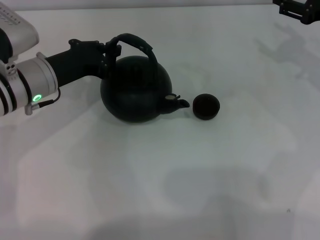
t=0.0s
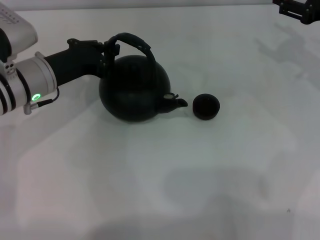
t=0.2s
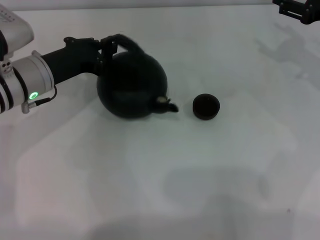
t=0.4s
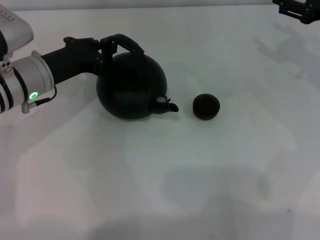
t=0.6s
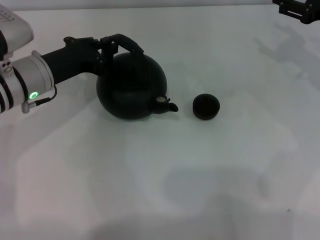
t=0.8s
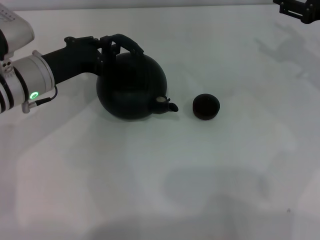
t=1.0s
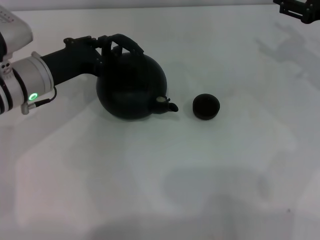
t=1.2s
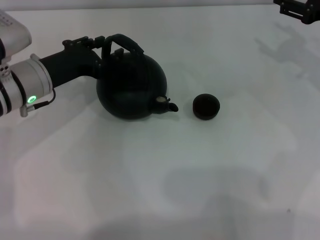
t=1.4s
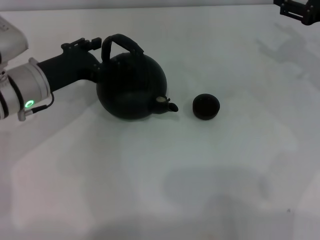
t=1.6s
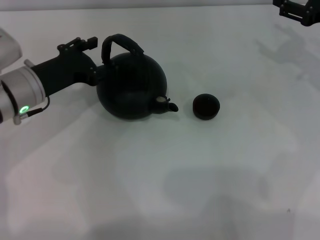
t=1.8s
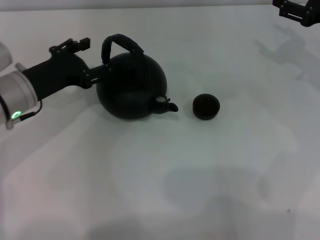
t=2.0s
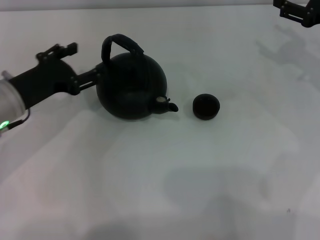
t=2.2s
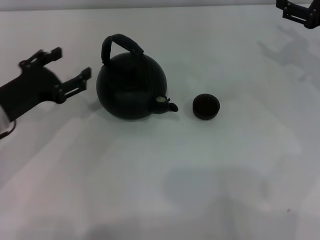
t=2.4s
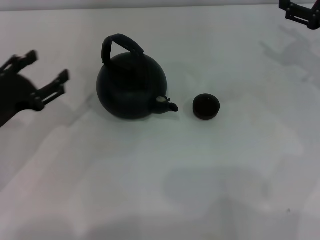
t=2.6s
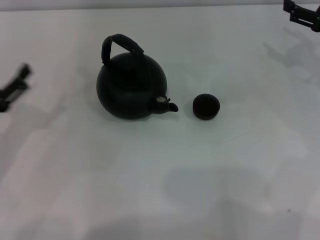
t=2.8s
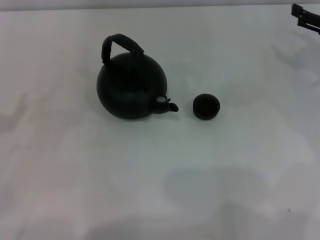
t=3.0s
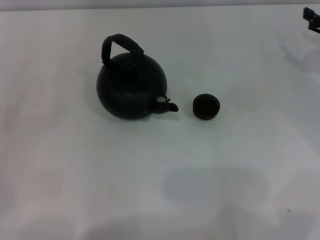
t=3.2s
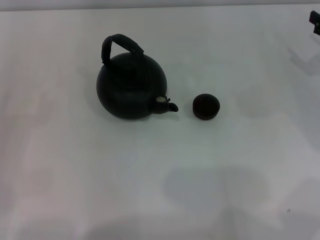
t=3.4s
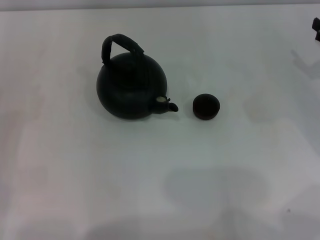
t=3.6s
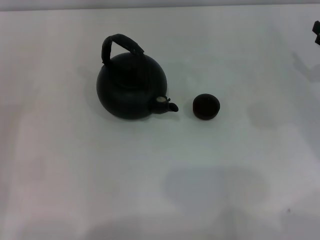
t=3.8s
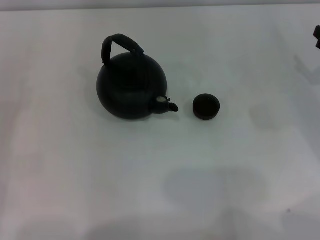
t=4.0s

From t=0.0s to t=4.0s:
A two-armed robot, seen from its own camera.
Task of the whole recording: Grasp the handle of the teapot with one hand and pour tea into the teacup.
From t=0.0s to t=1.4s: The left gripper opens up.
From t=1.4s to t=2.6s: The left gripper goes approximately 10 cm backward and to the left, and opens its fingers.
From t=2.6s to t=4.0s: The left gripper moves to the left, approximately 10 cm. The right gripper moves downward and backward, roughly 10 cm.

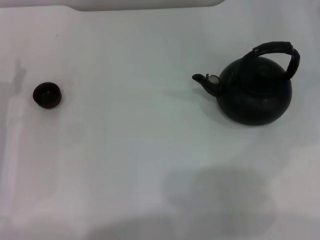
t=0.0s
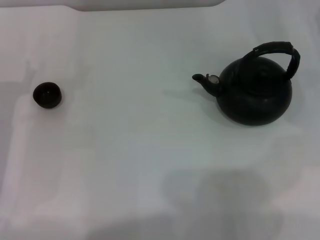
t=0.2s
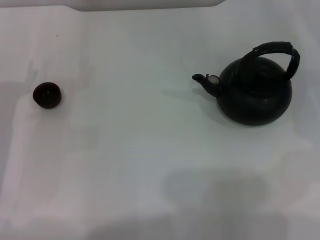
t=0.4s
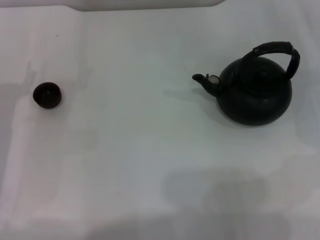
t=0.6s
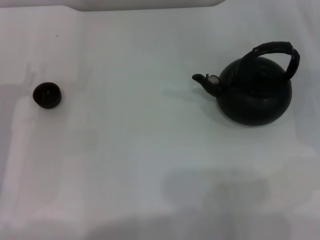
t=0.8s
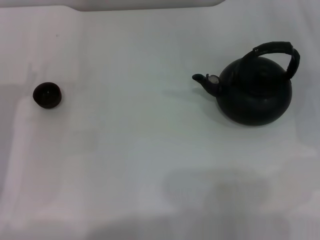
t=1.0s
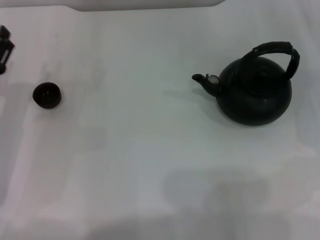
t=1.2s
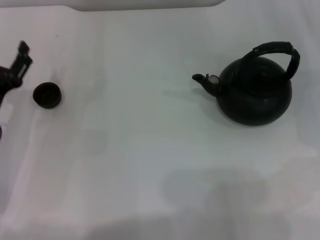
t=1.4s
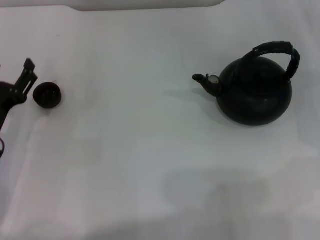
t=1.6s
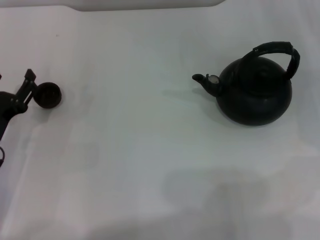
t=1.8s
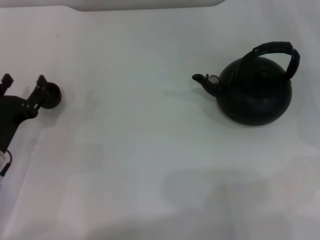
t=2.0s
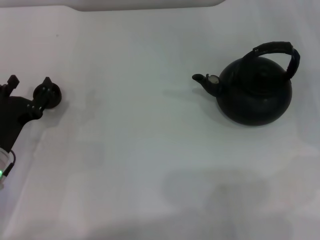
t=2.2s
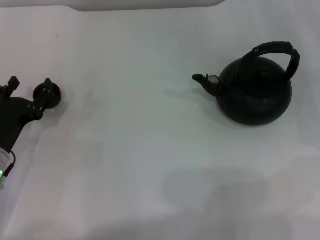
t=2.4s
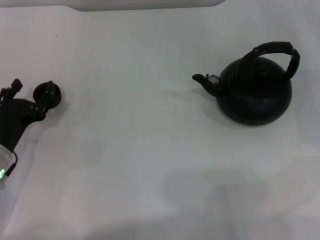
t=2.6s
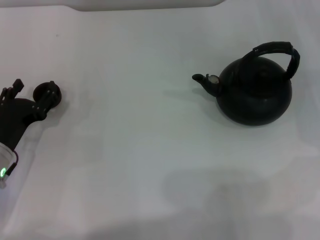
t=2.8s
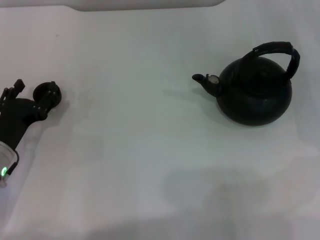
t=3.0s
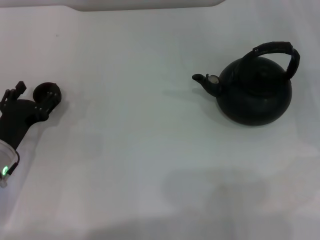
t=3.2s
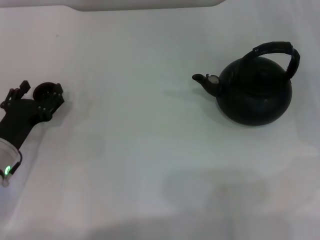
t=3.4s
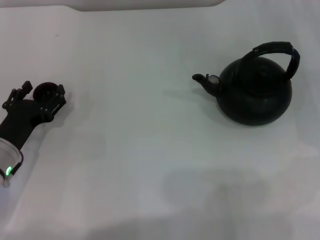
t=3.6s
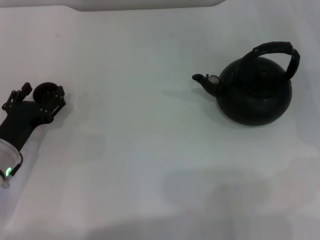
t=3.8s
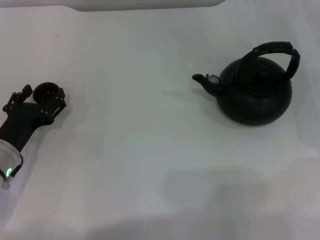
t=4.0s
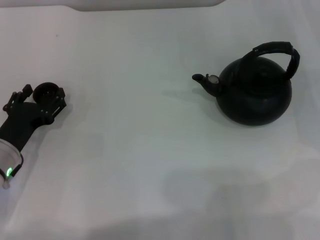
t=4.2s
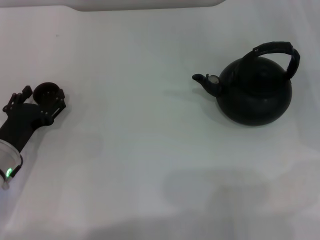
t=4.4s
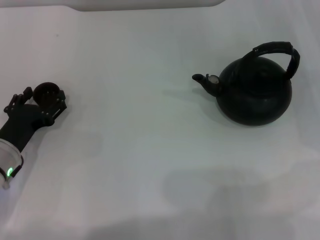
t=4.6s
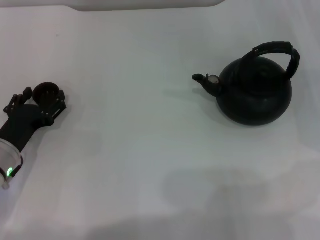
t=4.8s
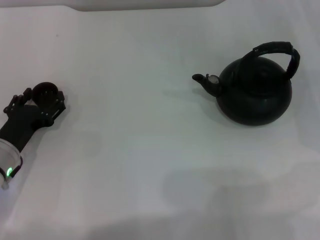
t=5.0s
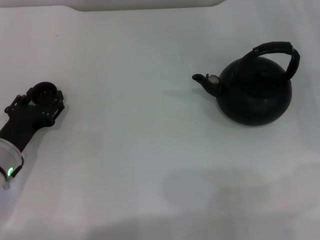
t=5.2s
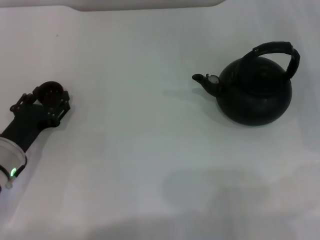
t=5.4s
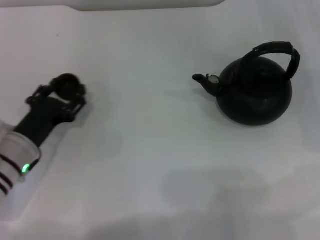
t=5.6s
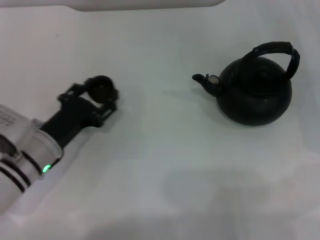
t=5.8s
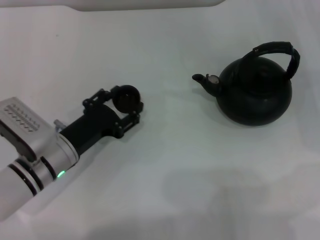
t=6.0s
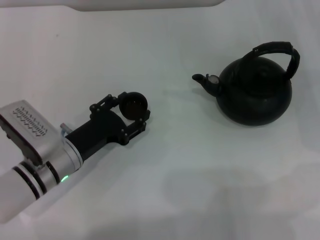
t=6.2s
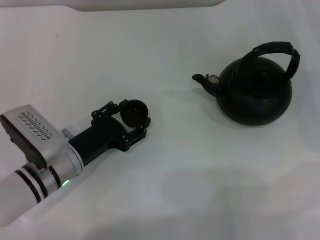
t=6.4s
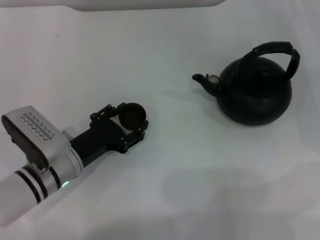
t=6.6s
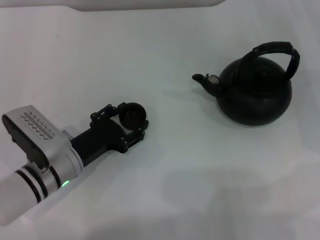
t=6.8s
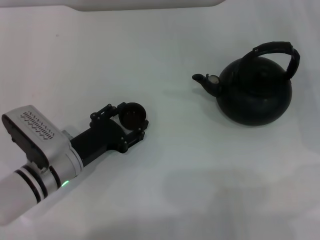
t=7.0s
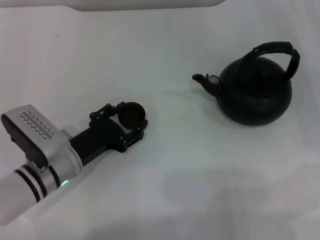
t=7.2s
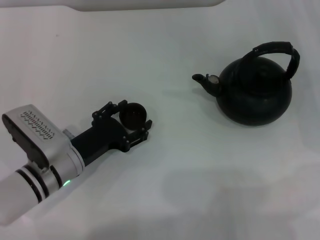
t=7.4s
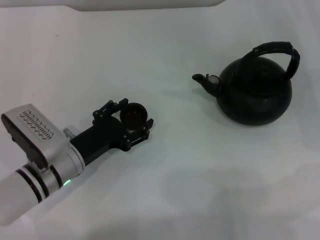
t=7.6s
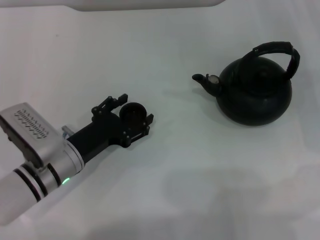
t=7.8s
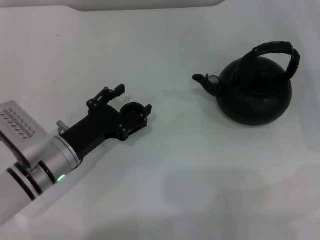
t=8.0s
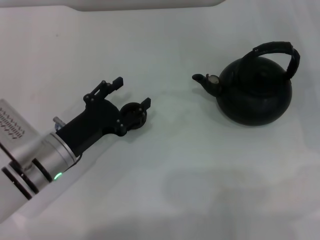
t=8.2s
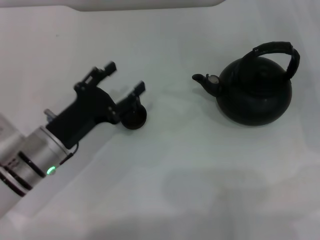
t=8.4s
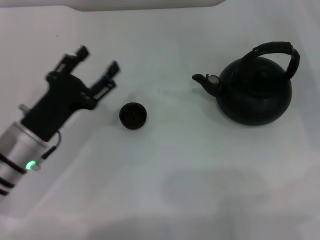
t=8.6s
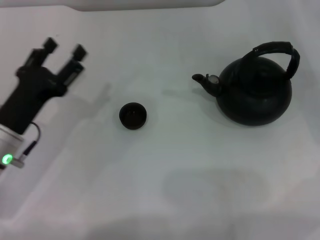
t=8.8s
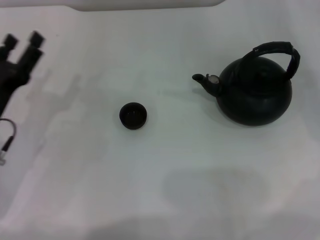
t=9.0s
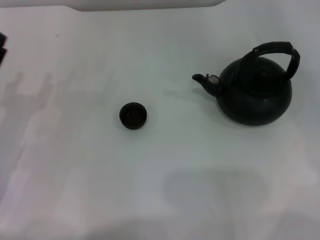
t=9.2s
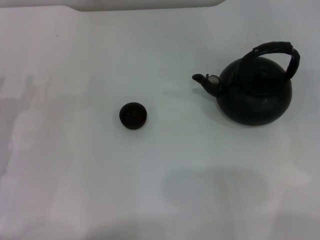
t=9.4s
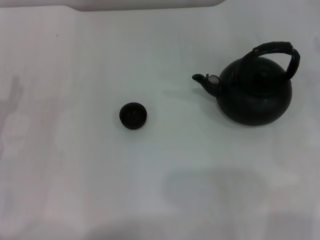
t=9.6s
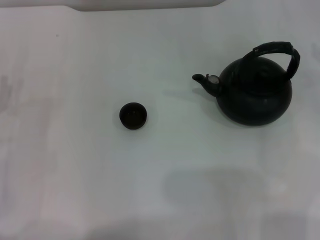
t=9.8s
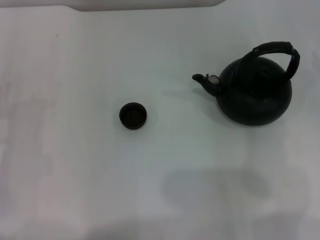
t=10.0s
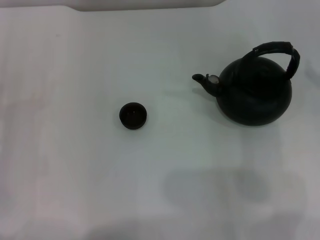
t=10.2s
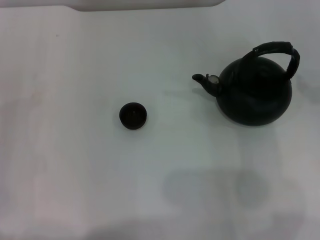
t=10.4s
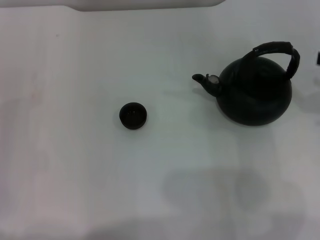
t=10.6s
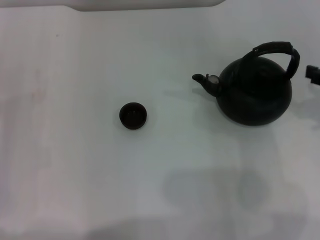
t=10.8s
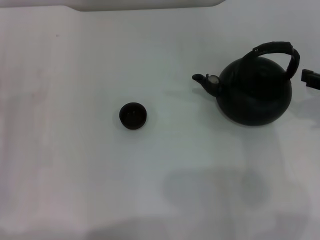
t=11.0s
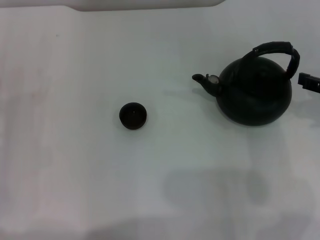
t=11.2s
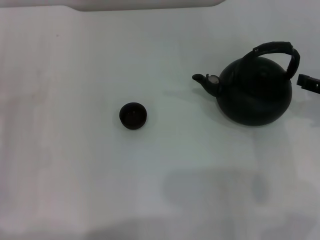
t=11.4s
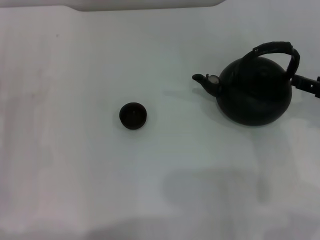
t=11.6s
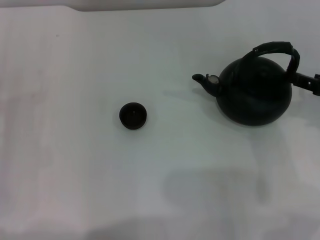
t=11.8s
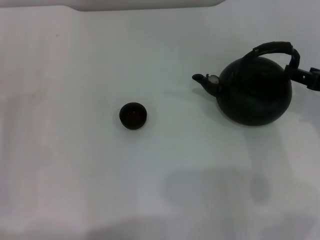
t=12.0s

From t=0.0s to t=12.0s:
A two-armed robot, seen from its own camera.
Task of the whole recording: Grasp the handle of the teapot with one hand and pour tea into the teacup.
Step, from t=0.0s to t=5.4s: Pick up the teacup with the left gripper.
Step, from t=5.6s to t=8.4s: Place the teacup in the center of view with the left gripper.
From t=1.6s to t=3.0s: The grippers move only a little.
From t=3.0s to t=4.4s: The two grippers keep their place.
From t=4.4s to t=6.0s: The left gripper travels to the right by roughly 10 cm, and closes.
From t=6.0s to t=7.6s: The left gripper opens its fingers.
From t=7.6s to t=9.0s: The right gripper travels upward by about 5 cm; the left gripper moves to the left, roughly 10 cm.
From t=9.0s to t=10.4s: The left gripper goes about 5 cm to the left.
From t=10.4s to t=12.0s: The right gripper shifts about 5 cm downward.

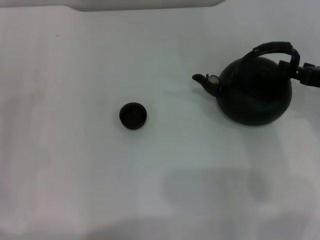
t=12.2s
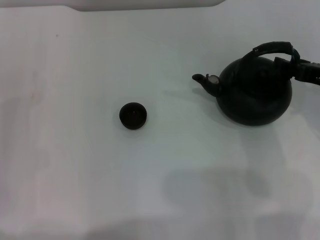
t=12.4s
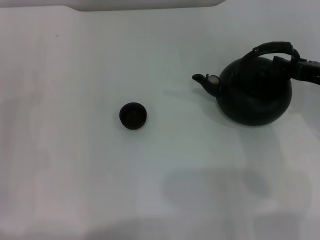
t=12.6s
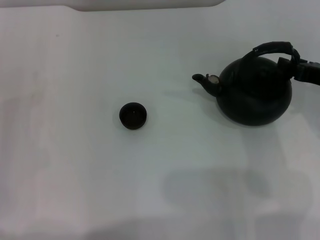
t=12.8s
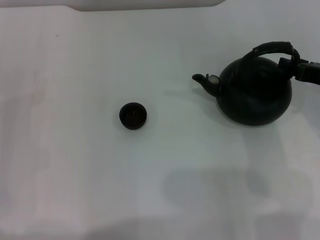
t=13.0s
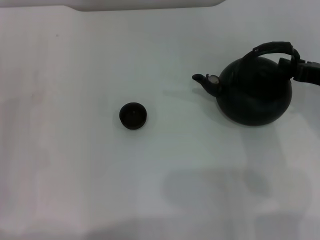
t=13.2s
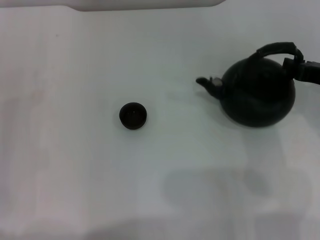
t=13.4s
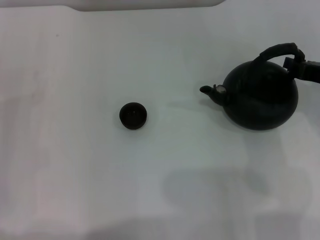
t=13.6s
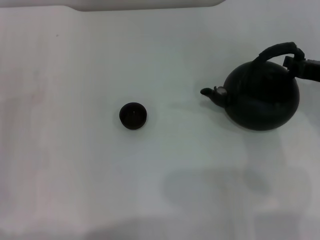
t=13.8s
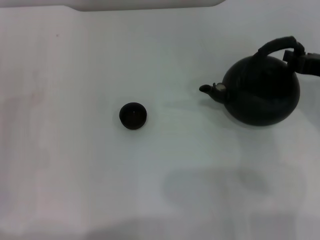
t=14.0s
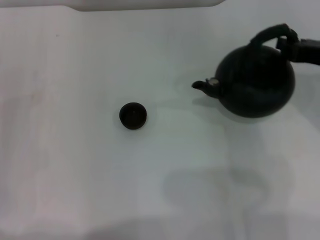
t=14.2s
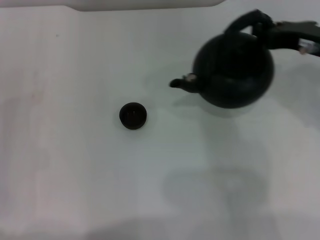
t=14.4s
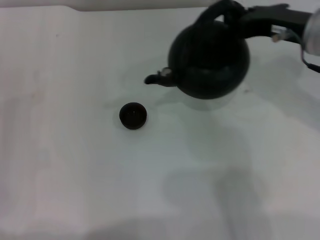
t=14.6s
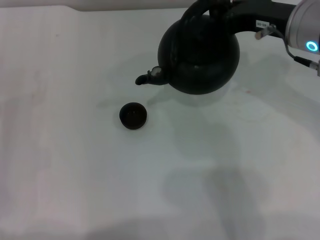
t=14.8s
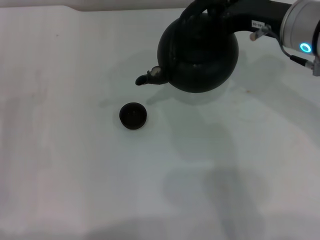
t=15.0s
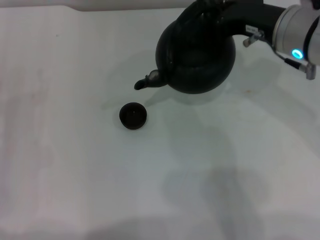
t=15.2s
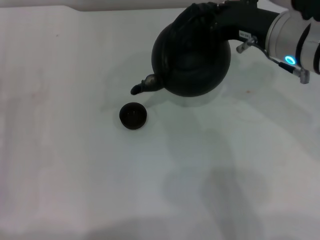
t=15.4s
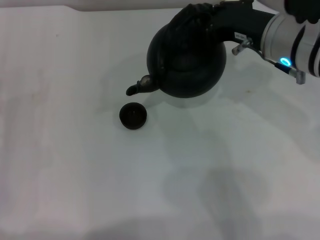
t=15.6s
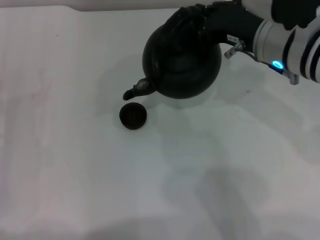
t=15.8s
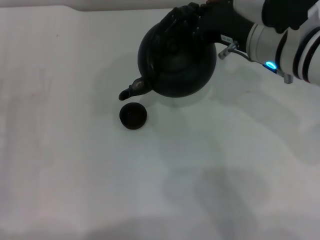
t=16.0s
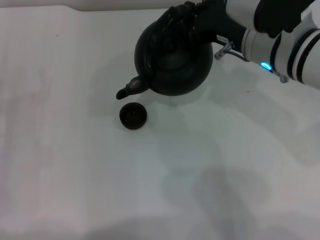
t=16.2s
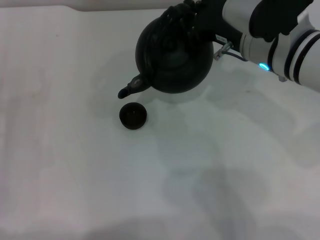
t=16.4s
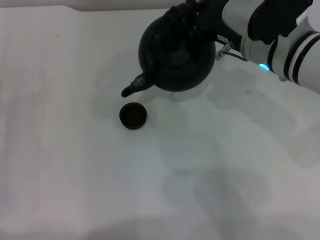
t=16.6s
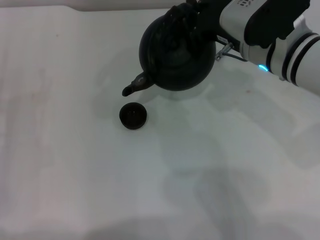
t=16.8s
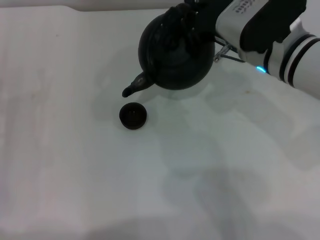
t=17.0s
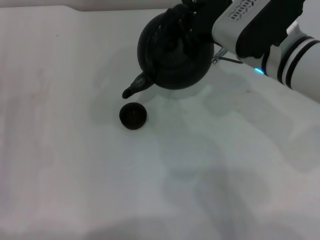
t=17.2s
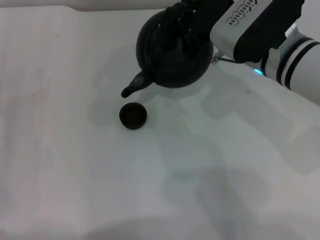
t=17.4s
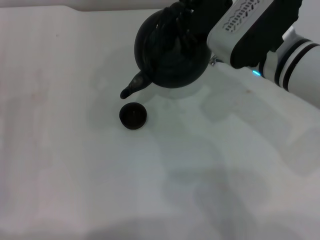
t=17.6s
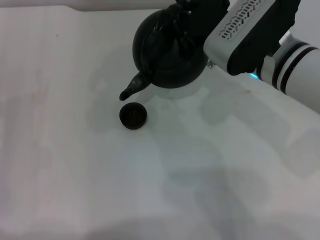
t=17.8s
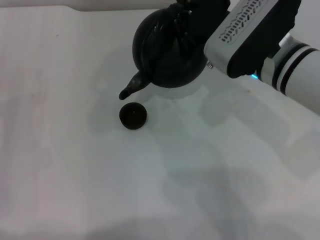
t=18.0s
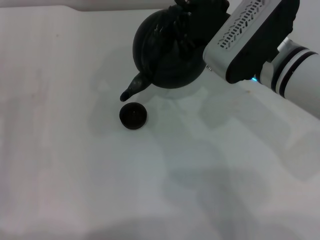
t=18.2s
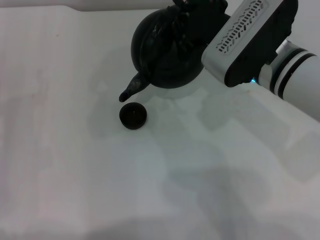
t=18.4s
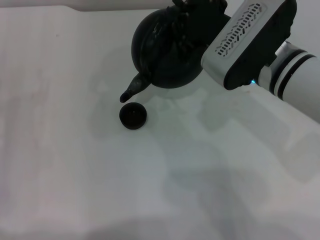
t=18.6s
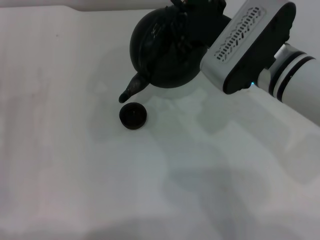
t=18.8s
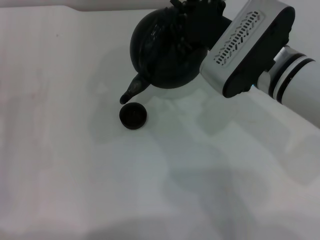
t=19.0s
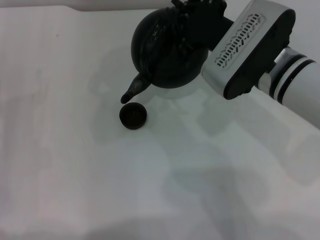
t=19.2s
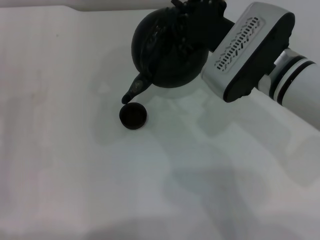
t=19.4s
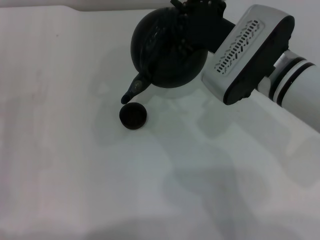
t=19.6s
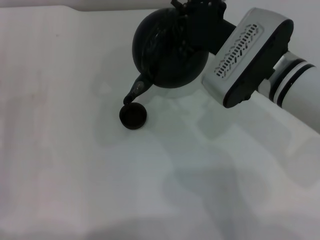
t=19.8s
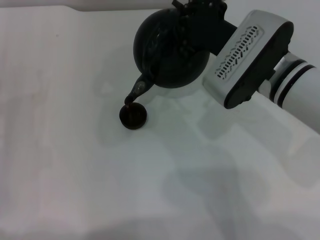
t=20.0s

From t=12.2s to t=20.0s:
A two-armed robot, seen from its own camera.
Task of the whole recording: Grasp the handle of the teapot with one hand and pour tea into the teacup.
Step, from t=12.2s to t=14.2s: Pick up the teapot with the right gripper.
From t=12.2s to t=13.8s: The right gripper closes up.
From t=13.8s to t=15.4s: The right gripper is displaced to the left and upward by roughly 15 cm.
From t=15.4s to t=16.8s: The grippers make only small movements.
From t=16.8s to t=18.4s: The grippers stay close to where they were, moving slightly.
From t=18.4s to t=20.0s: The grippers move only a little.
